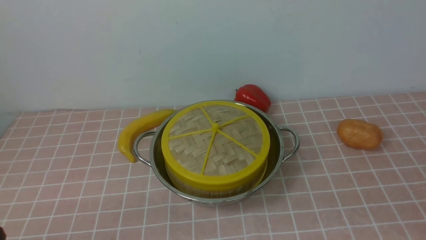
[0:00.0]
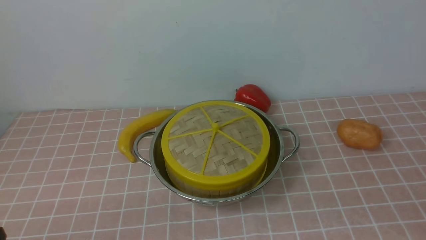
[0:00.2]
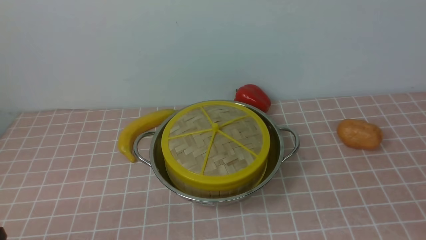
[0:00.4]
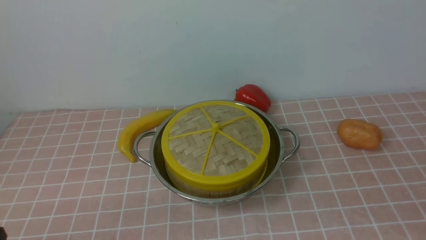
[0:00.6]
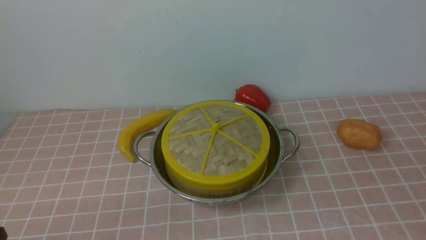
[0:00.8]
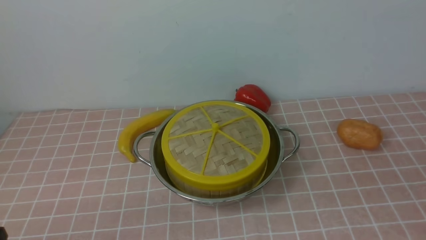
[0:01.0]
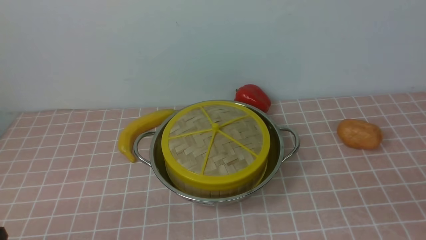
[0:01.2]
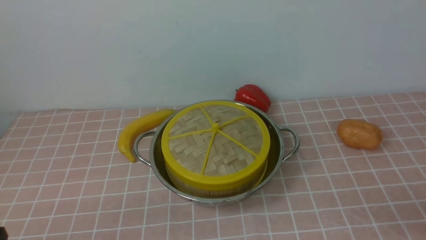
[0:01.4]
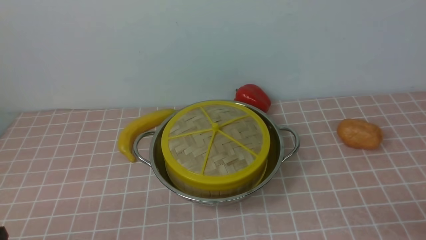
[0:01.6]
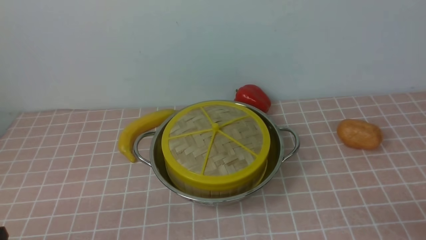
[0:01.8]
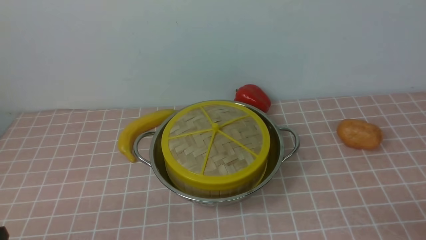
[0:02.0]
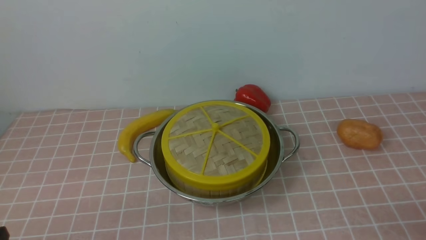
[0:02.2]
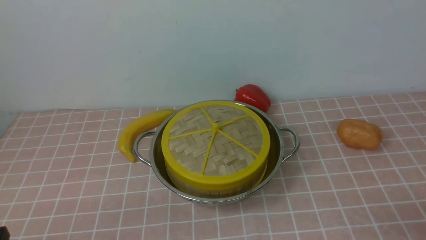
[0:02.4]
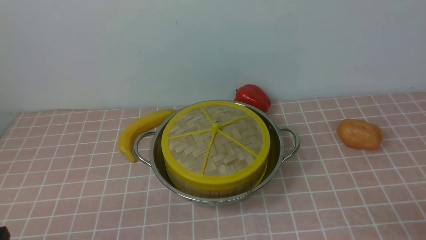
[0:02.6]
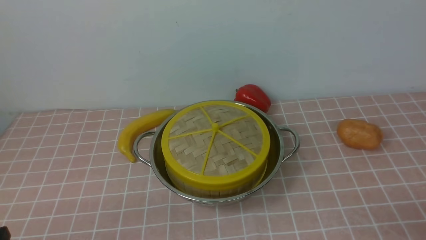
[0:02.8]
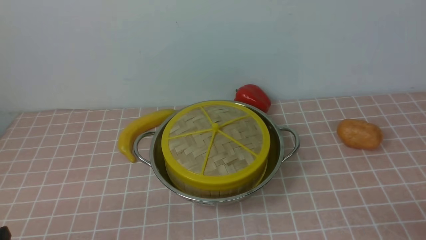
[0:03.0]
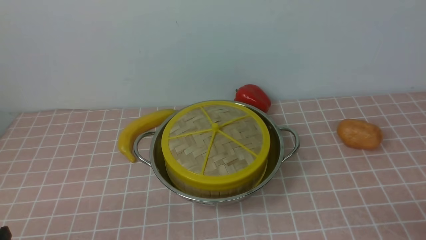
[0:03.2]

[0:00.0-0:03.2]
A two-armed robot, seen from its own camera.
Task of the whole recording: place the steamer in the pot on the pink tablecloth, and put the lid on the steamer.
0:01.6 to 0:03.2: Both grippers stay put.
